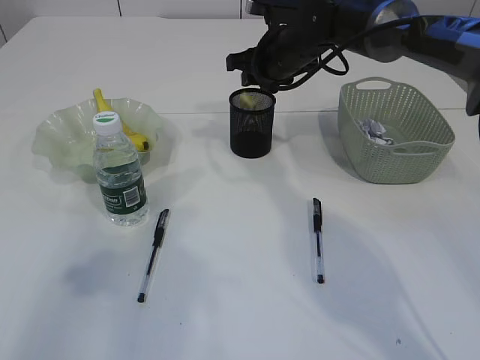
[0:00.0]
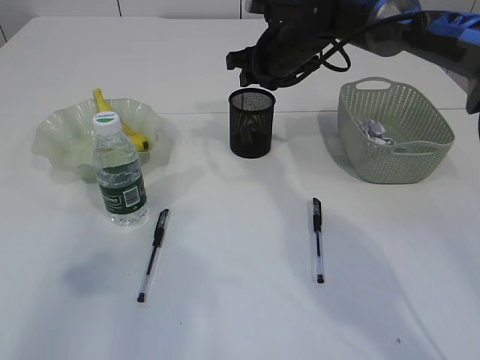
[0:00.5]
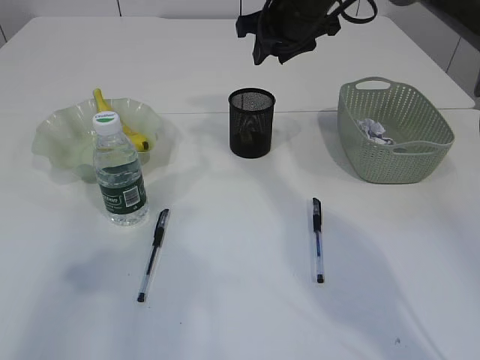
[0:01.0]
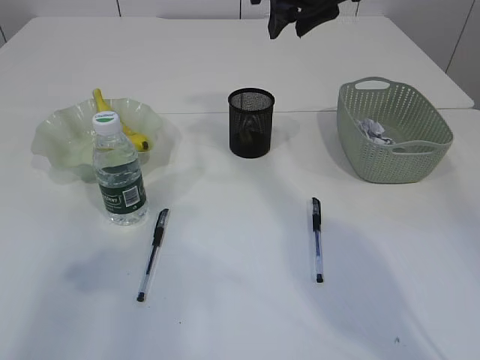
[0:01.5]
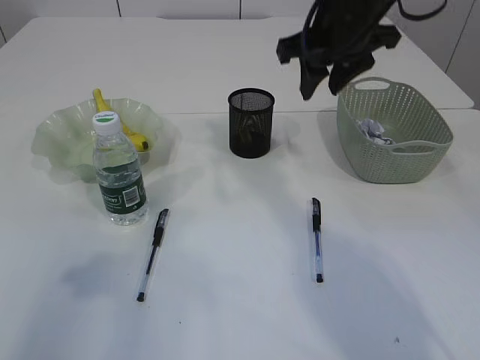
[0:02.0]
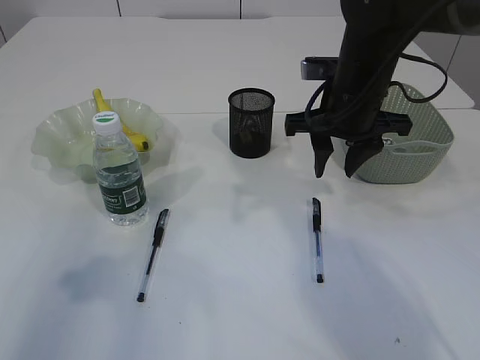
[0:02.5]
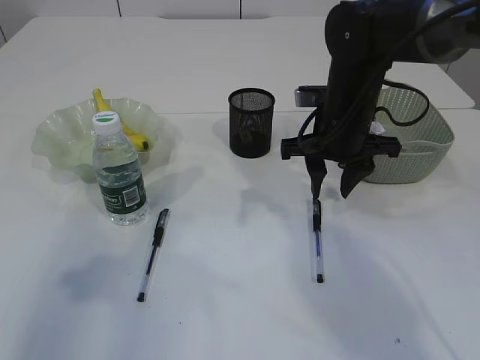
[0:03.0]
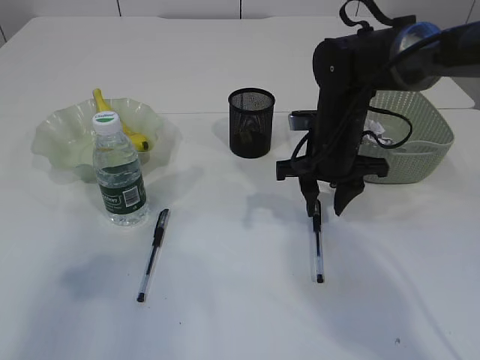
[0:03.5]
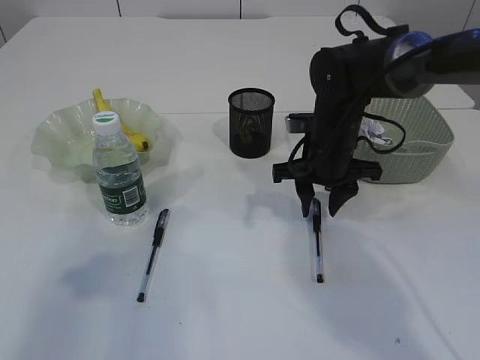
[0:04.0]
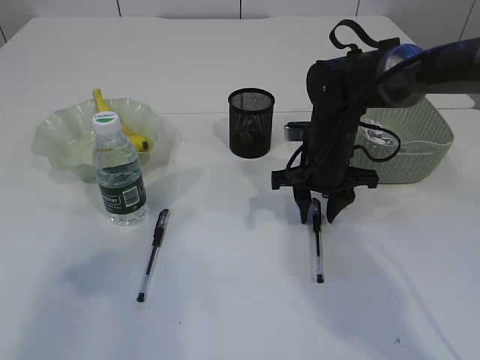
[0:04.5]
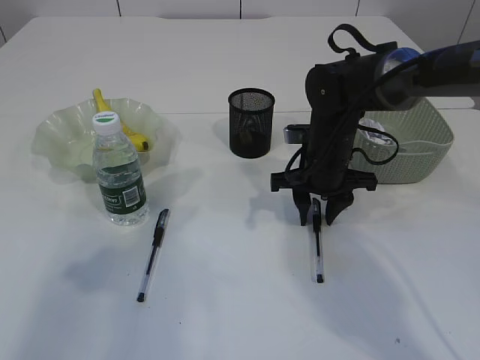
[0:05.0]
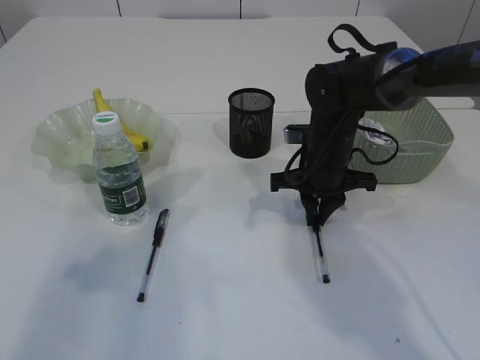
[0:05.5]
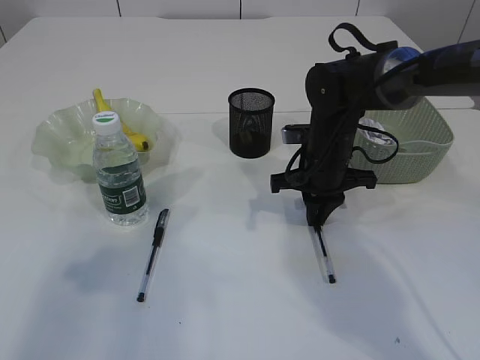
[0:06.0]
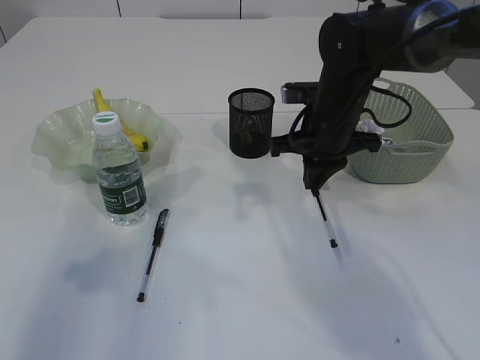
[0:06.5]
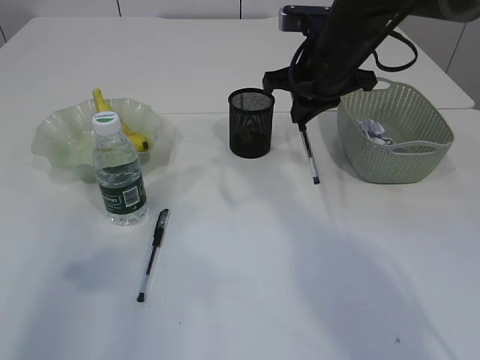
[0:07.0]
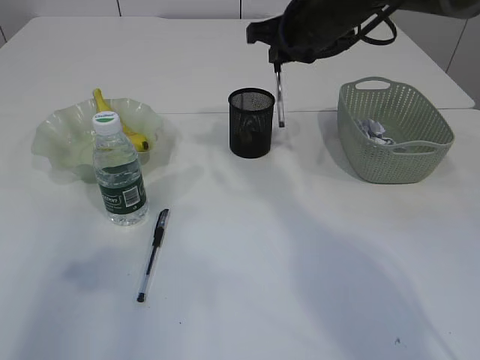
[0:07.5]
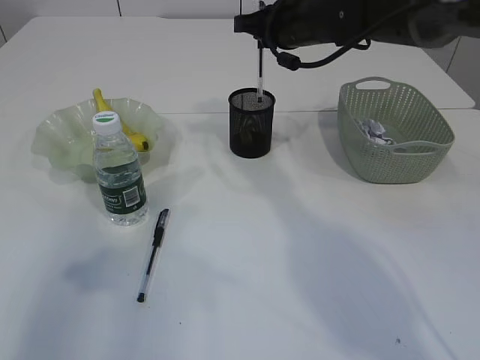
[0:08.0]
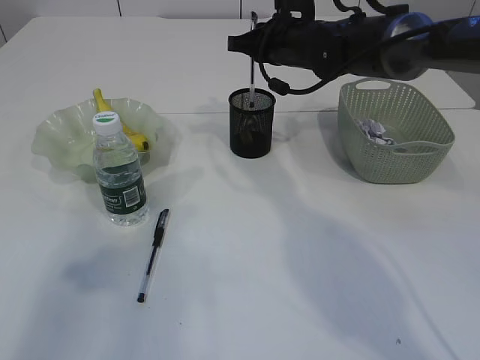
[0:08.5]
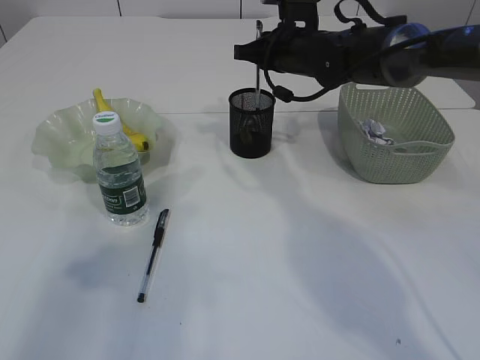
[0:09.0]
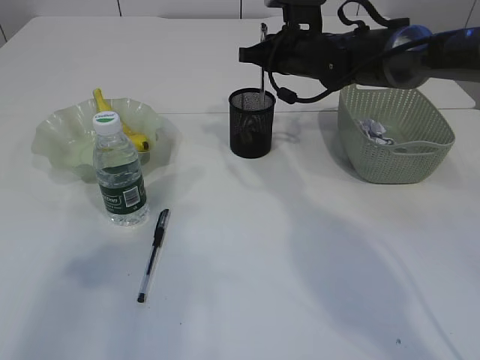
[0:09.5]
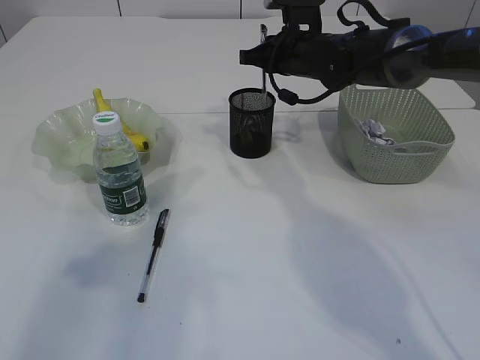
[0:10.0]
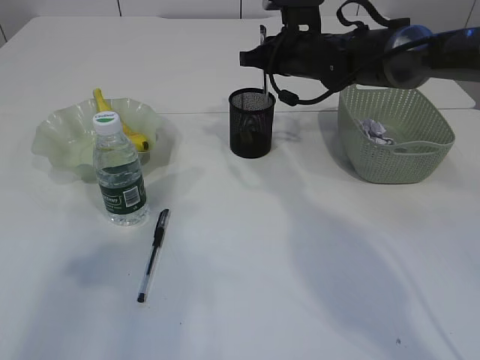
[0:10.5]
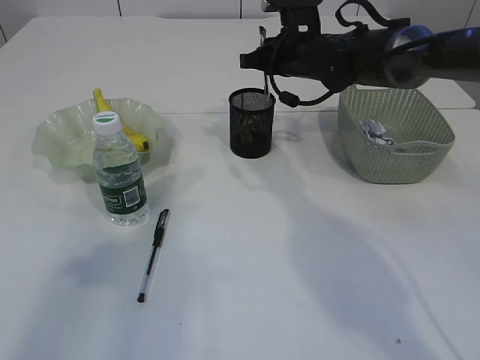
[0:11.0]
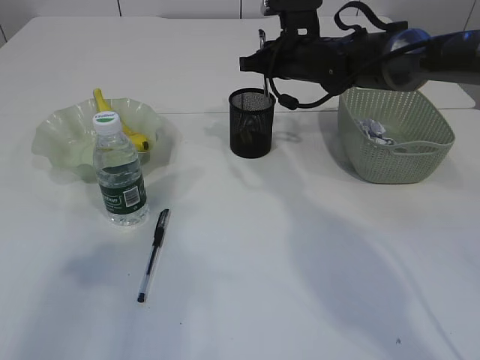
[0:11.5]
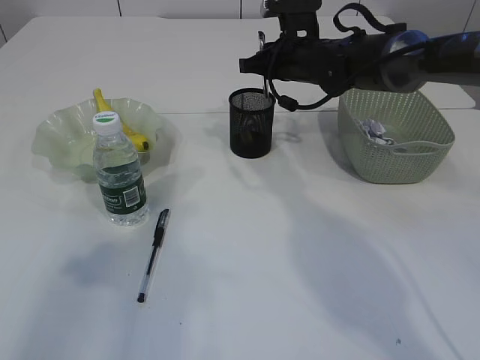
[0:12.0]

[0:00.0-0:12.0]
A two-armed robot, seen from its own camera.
Step, 0:01.5 to 0:06.5: Pick up the pen with right arm.
0:00.0 to 0:02.0: The right gripper is displaced backward and upward by roughly 15 cm.
0:02.0 to 0:04.0: The right gripper shifts some 15 cm downward.
0:04.0 to 0:06.0: The right gripper closes.
0:06.0 to 0:08.0: The right gripper heads upward and forward, covering roughly 15 cm.
0:08.0 to 0:10.0: The right gripper travels downward by approximately 5 cm.
0:10.0 to 0:12.0: The two grippers keep their place.

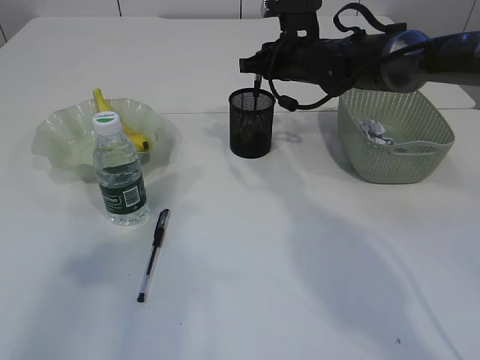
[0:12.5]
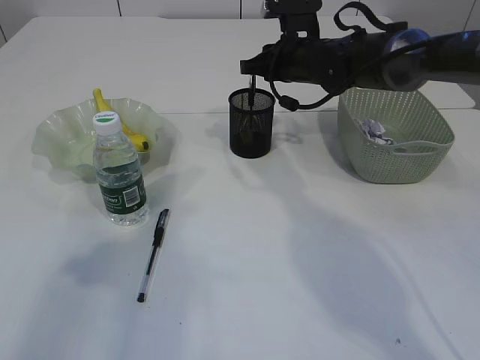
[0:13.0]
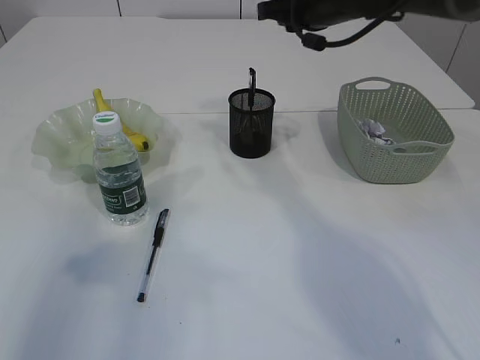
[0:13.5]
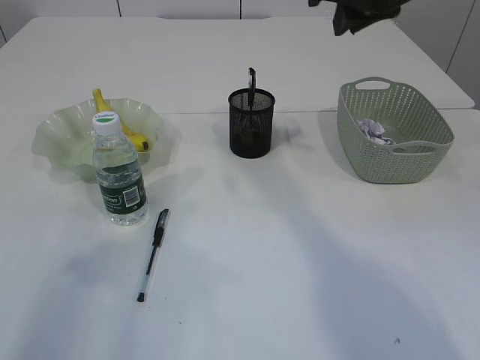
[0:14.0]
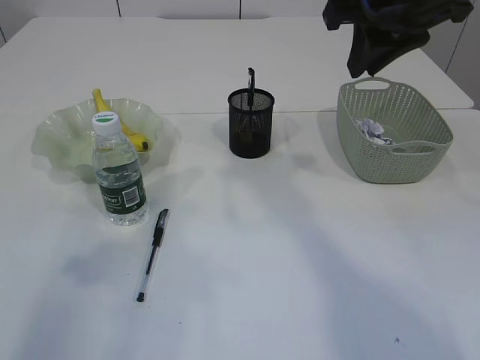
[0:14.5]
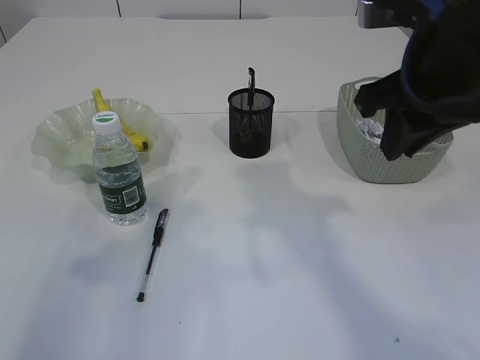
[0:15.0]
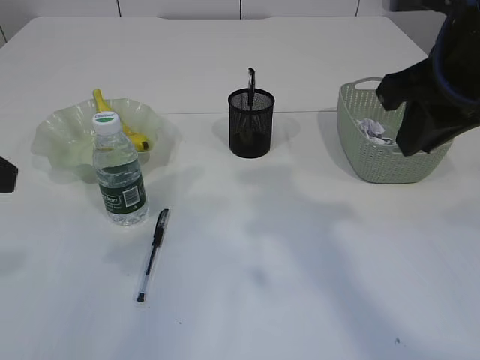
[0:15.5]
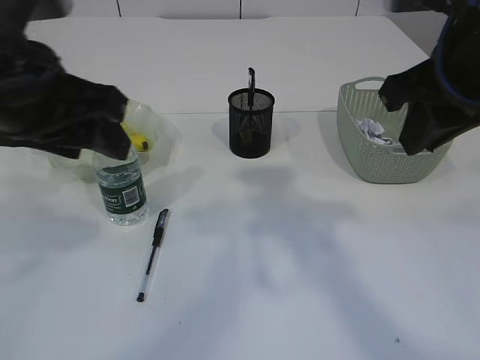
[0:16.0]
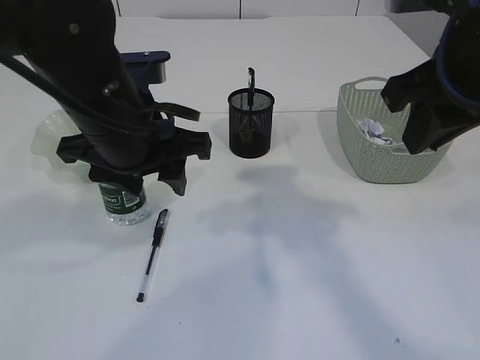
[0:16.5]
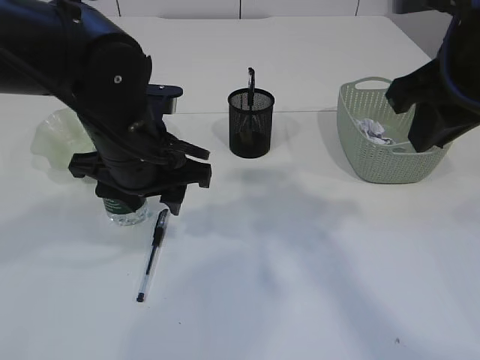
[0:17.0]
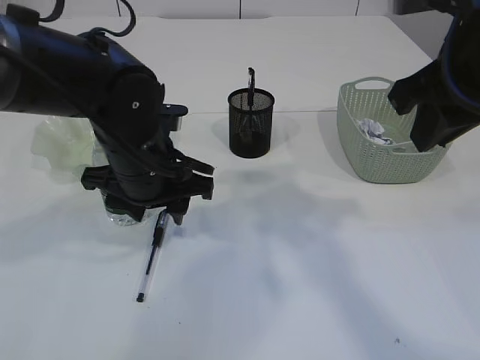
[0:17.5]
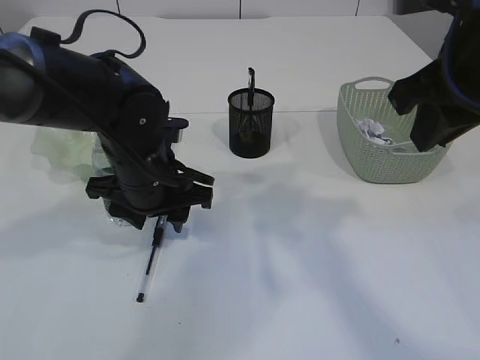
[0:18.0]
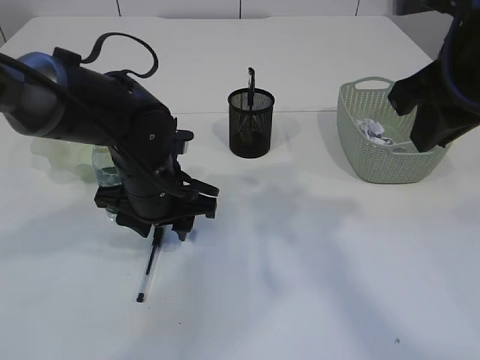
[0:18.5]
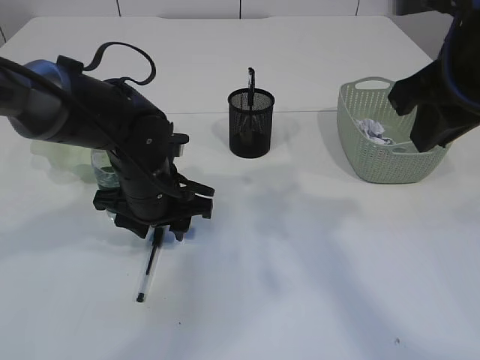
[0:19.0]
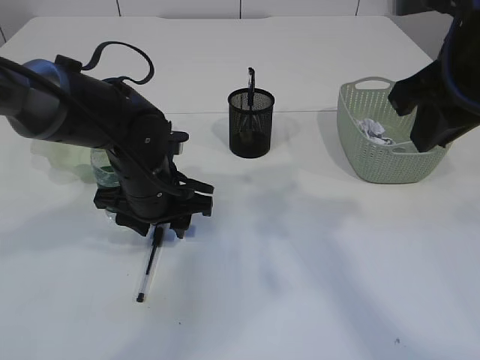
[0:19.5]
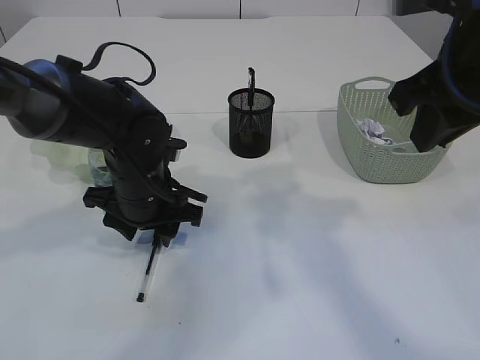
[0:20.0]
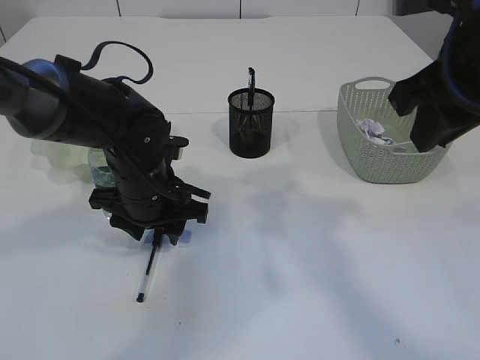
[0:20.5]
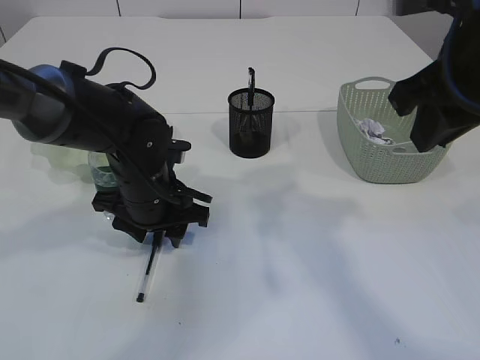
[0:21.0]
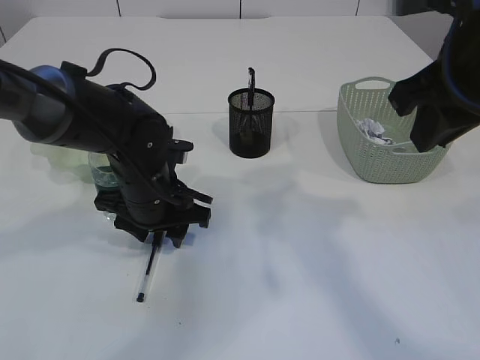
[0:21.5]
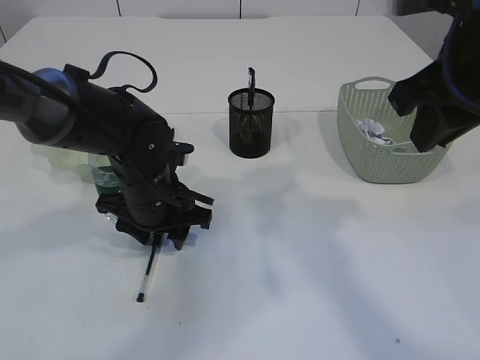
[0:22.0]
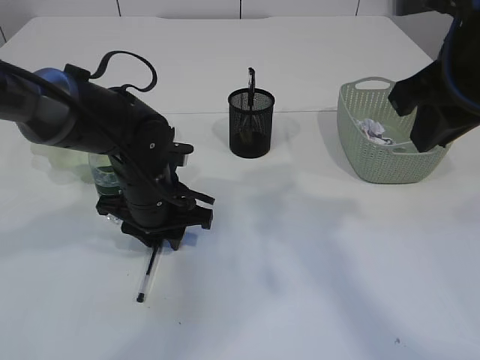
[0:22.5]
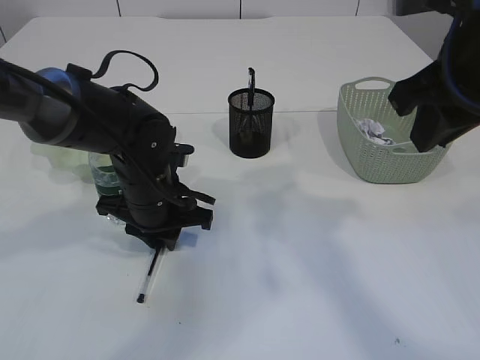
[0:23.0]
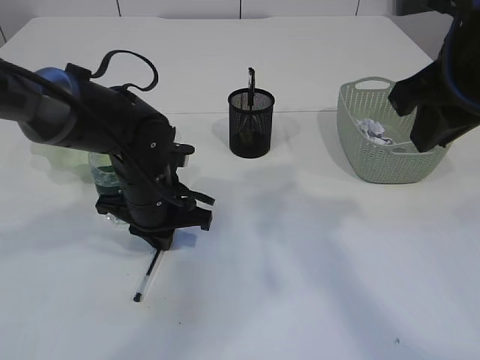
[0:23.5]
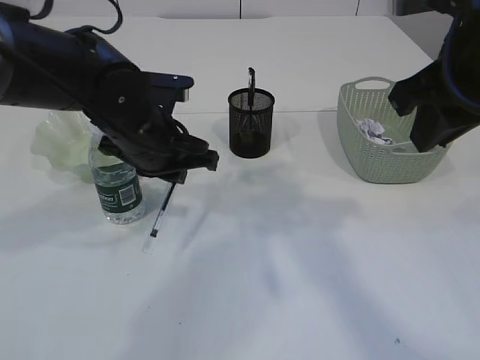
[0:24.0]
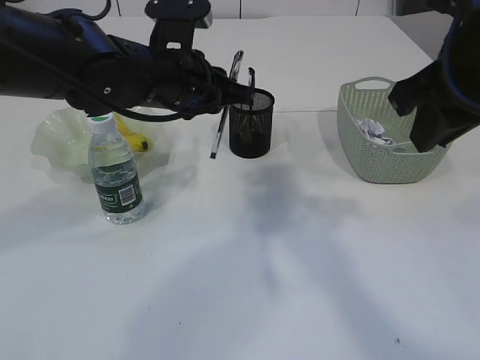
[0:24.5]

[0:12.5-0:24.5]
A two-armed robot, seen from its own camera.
Step, 0:13.5 to 0:23.5: Pick up the pen with left arm.
0:12.5 to 0:14.5: The right gripper goes approximately 20 cm backward and upward.
0:14.5 to 0:16.5: The left gripper shifts approximately 20 cm to the right and forward, while the right gripper goes about 10 cm backward.
0:16.5 to 0:18.5: The left gripper is displaced downward by about 10 cm.
0:18.5 to 0:20.5: The grippers make only small movements.
0:20.5 to 0:22.5: Neither gripper changes place.
0:22.5 to 0:24.5: The left gripper heads upward, covering about 10 cm, and closes up.

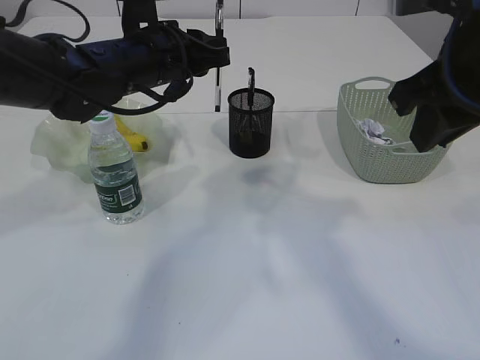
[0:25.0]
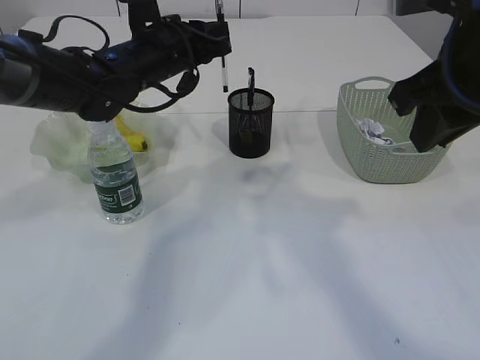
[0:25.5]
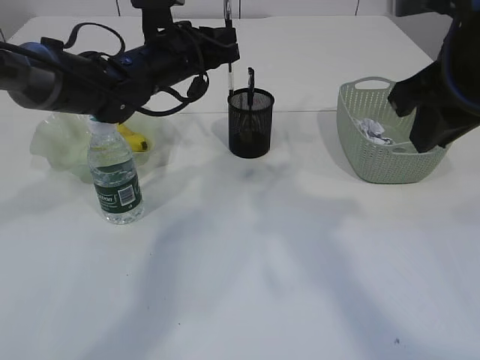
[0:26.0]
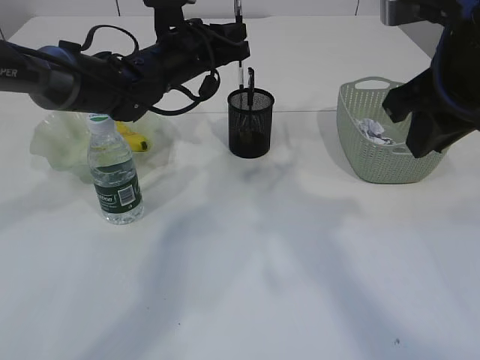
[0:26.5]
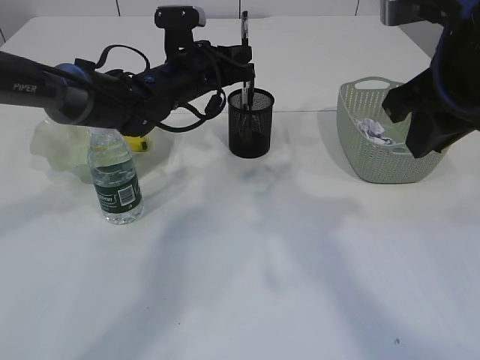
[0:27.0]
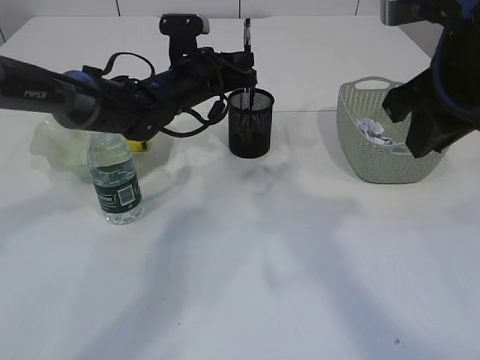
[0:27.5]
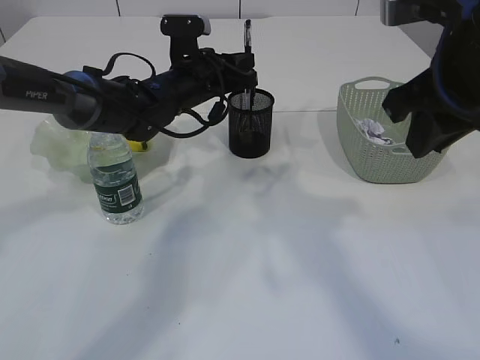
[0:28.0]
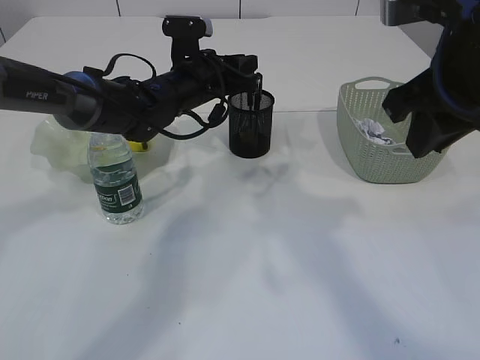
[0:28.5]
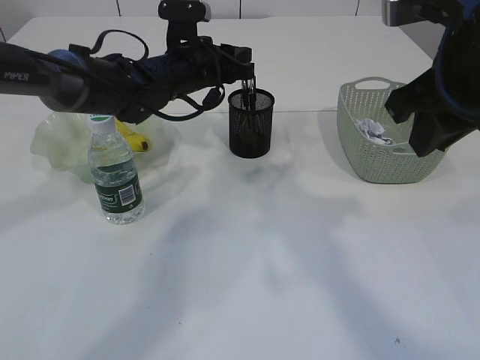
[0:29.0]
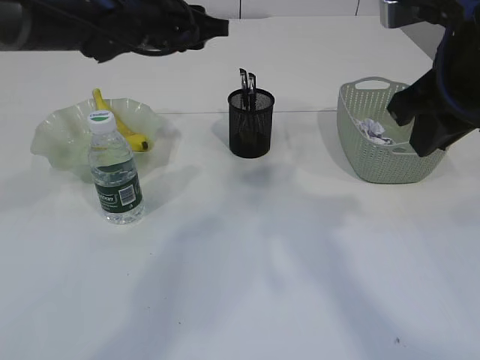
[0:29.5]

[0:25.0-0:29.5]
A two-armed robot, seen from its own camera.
Step, 0:25.0 to 0:29.0: Place the pen into the pen holder.
0:25.0 to 0:27.0: The left gripper travels forward and downward by about 10 cm.
0:27.0 to 0:29.5: The left gripper goes about 10 cm upward.
